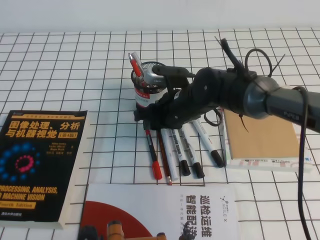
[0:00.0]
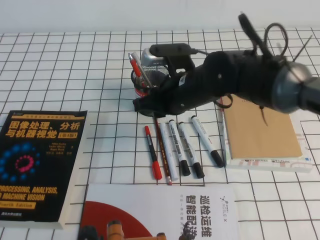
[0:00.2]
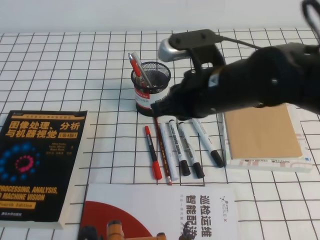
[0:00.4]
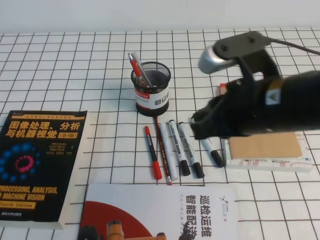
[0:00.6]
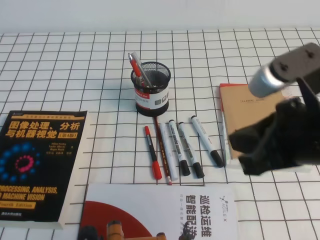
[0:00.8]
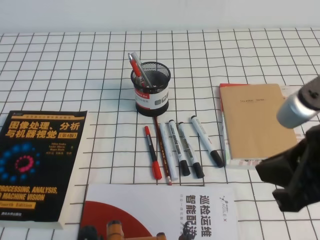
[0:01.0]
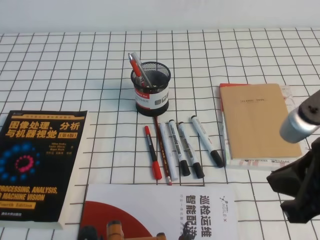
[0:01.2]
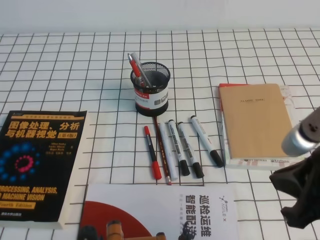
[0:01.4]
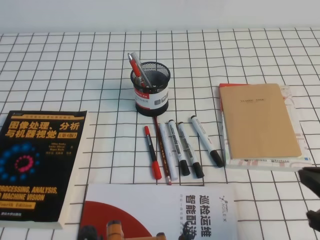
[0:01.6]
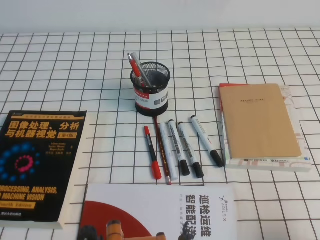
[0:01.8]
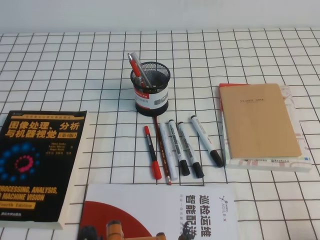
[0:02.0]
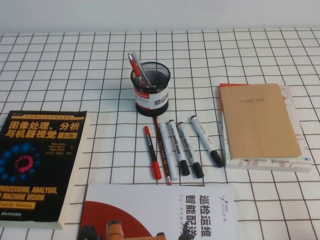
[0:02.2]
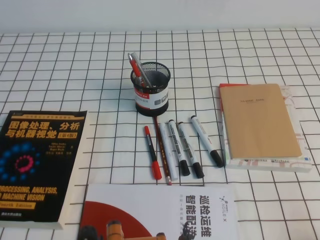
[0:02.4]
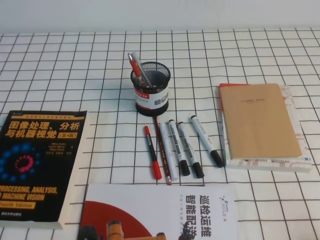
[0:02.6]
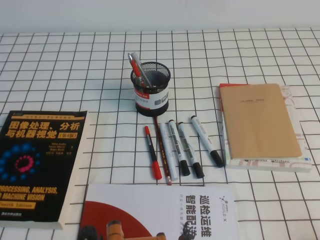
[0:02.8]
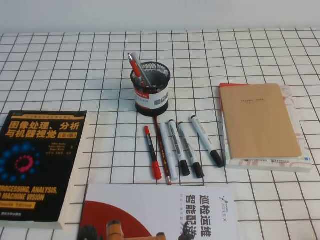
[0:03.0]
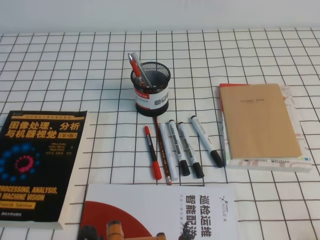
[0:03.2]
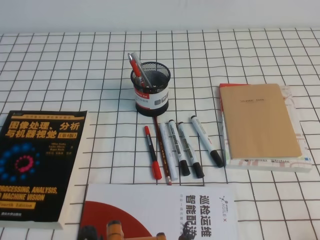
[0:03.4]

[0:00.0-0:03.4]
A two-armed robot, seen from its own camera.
Step, 0:00.0 to 0:03.4: Pick up the pen from the pen holder.
0:00.0 to 0:01.6: The right gripper shifts approximately 30 cm backward and to the right, and closes its fingers.
0:01.6 to 0:03.4: The right gripper moves downward, backward and to the right, some 15 cm.
